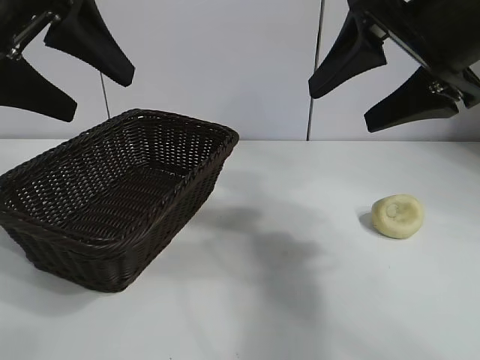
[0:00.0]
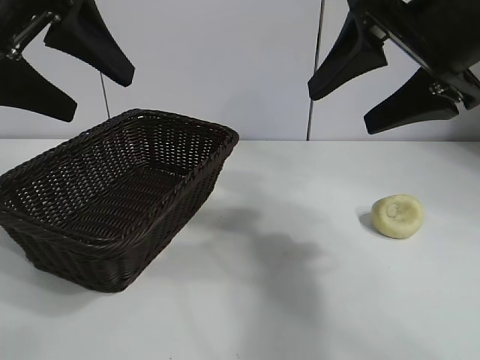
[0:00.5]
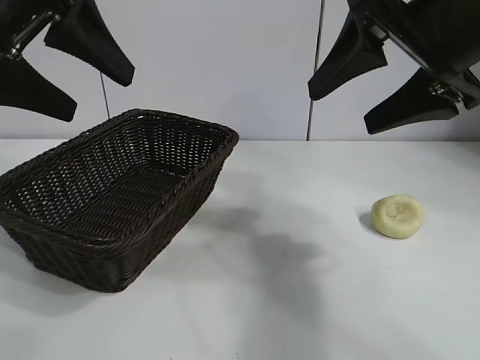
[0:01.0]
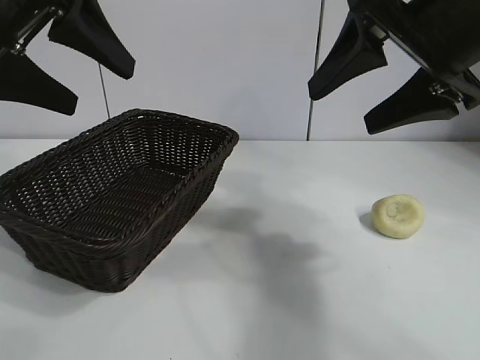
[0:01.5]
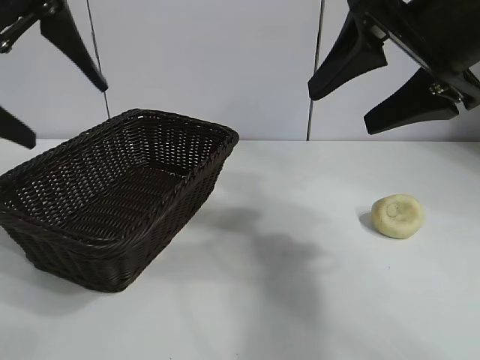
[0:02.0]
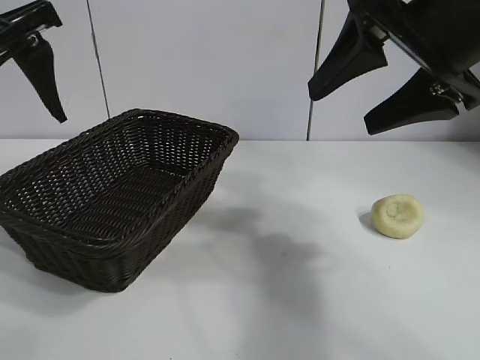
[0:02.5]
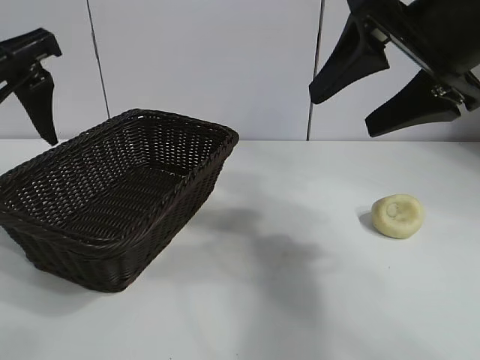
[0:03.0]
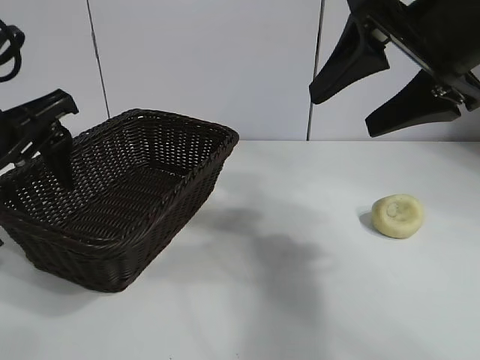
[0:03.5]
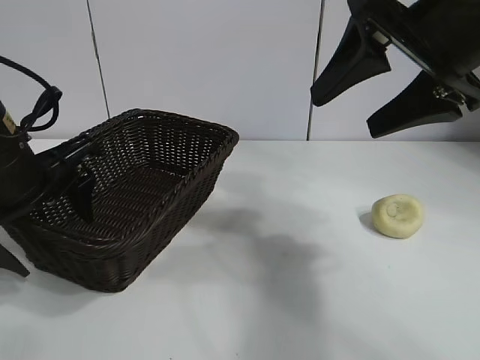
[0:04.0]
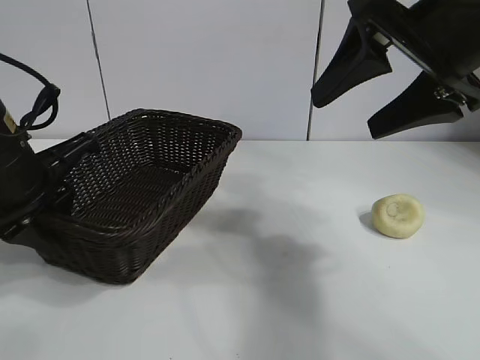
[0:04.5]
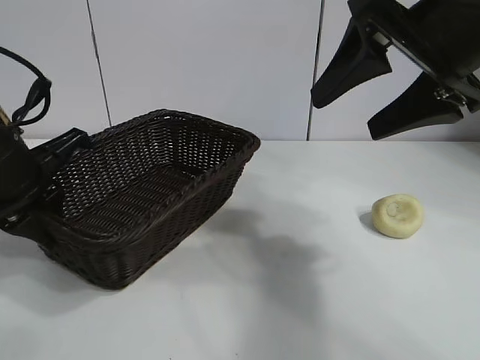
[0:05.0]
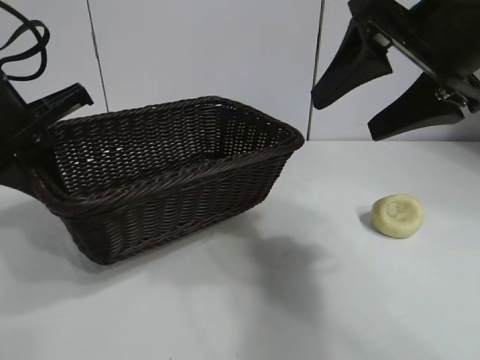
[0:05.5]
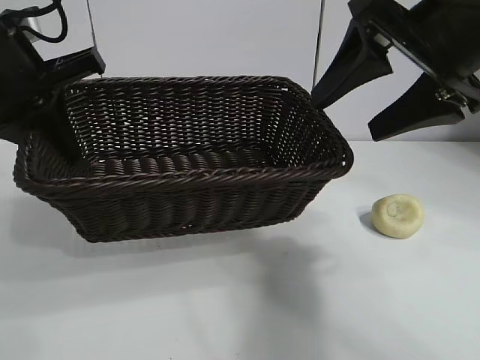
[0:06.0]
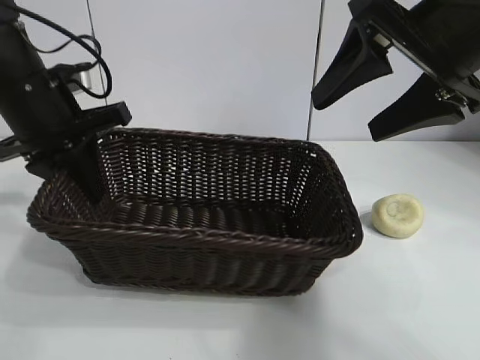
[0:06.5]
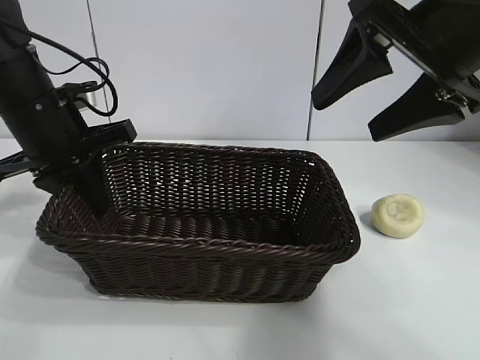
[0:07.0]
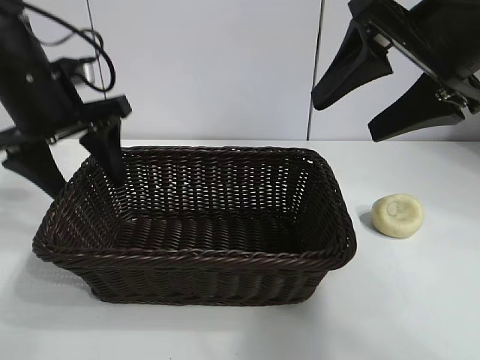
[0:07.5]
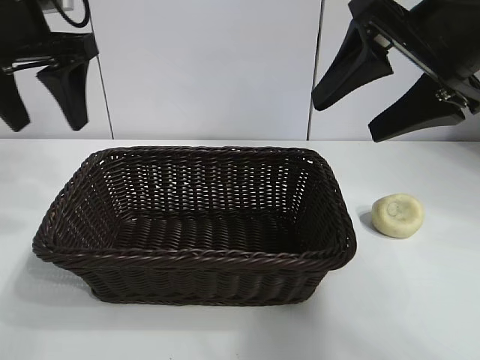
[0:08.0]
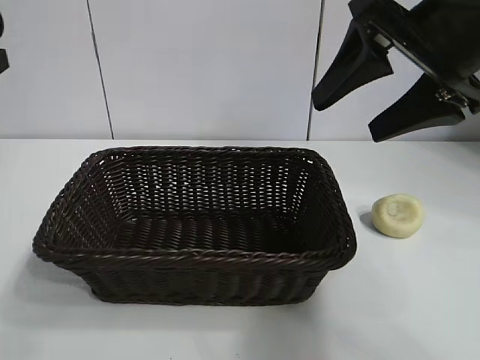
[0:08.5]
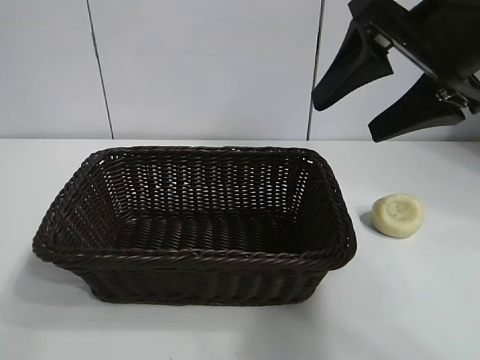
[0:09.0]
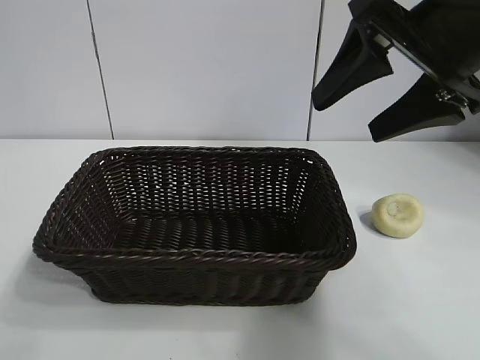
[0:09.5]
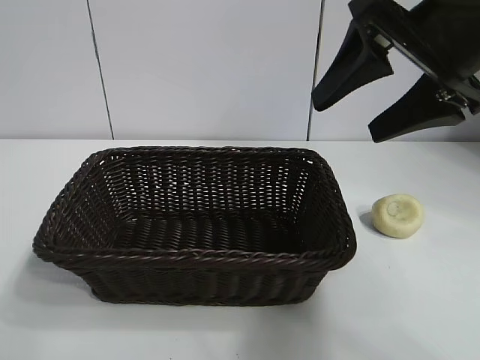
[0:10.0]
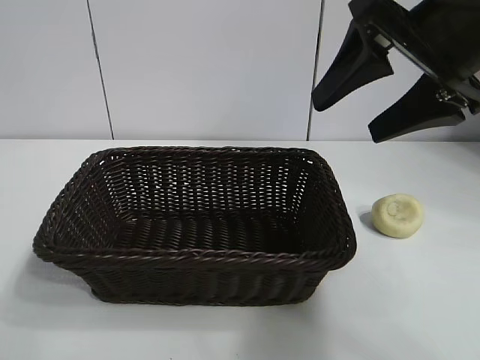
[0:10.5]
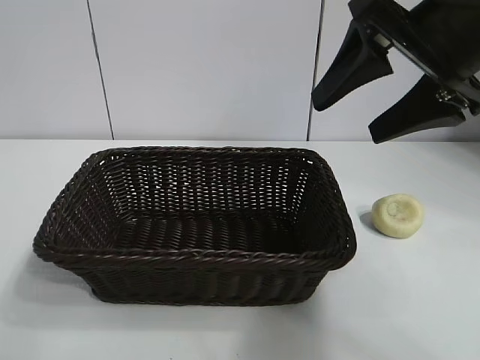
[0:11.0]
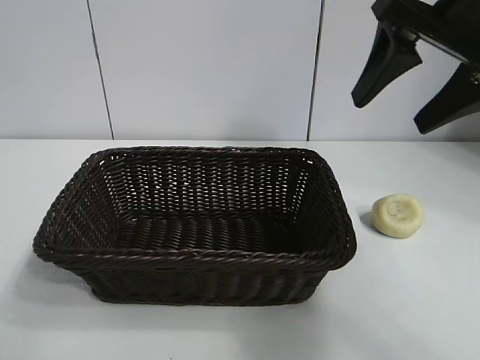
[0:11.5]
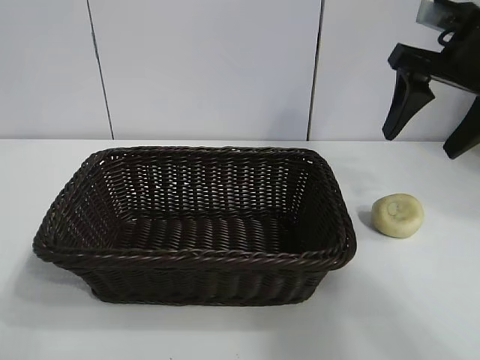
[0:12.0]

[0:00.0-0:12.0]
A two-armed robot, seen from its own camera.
Task of the whole recording: pick up the egg yolk pastry and put it into the basket.
Step, 0:01.5 to 0:04.5: Grasp the basket with left gripper.
Step, 0:05.0 to 0:07.0: Place the basket in the center of view with left gripper.

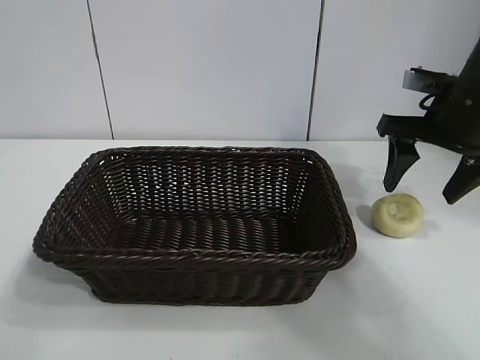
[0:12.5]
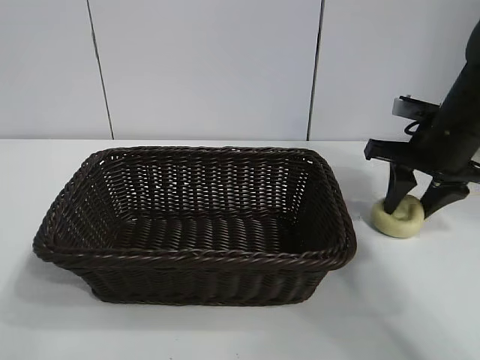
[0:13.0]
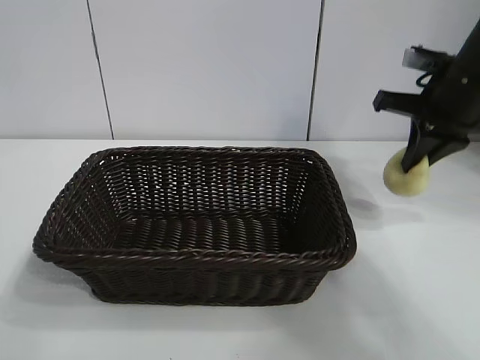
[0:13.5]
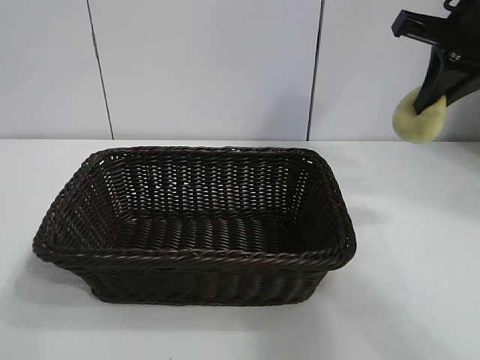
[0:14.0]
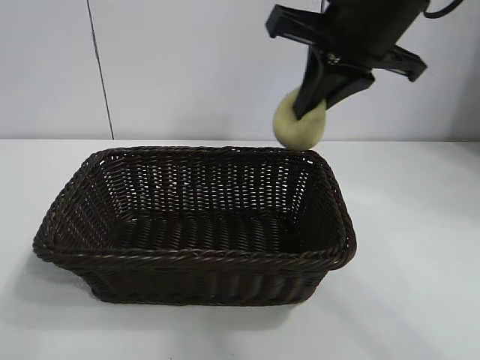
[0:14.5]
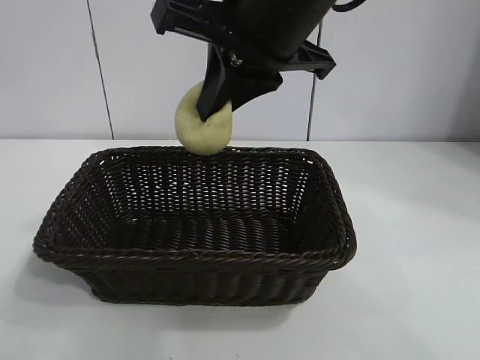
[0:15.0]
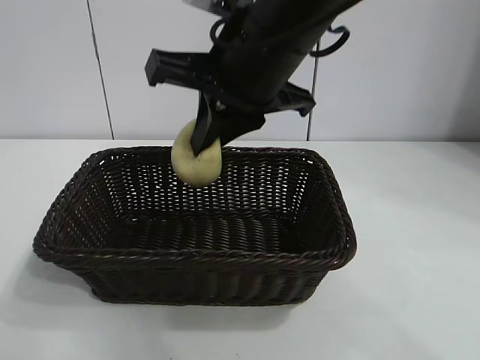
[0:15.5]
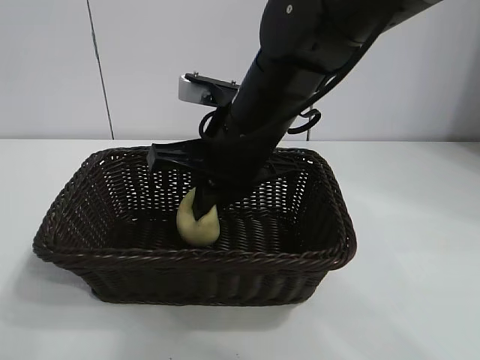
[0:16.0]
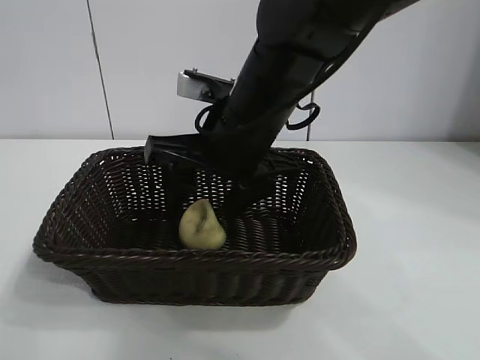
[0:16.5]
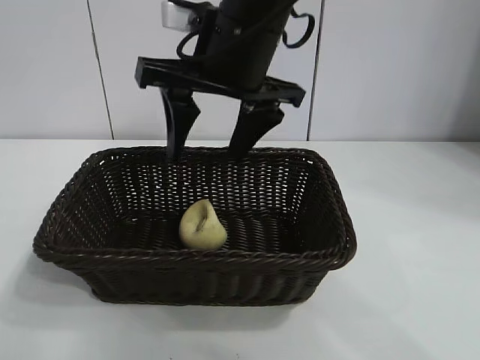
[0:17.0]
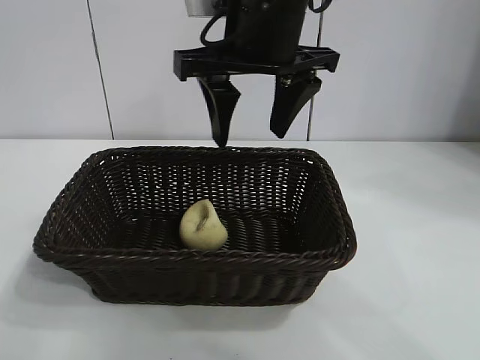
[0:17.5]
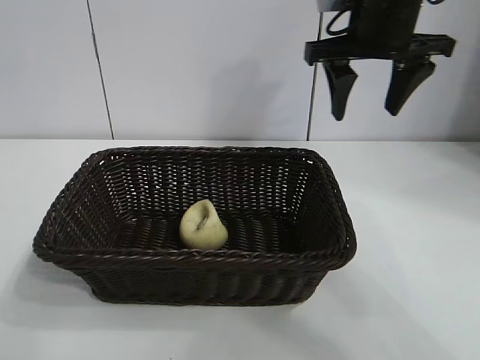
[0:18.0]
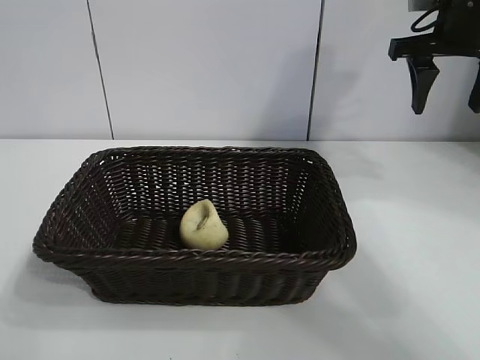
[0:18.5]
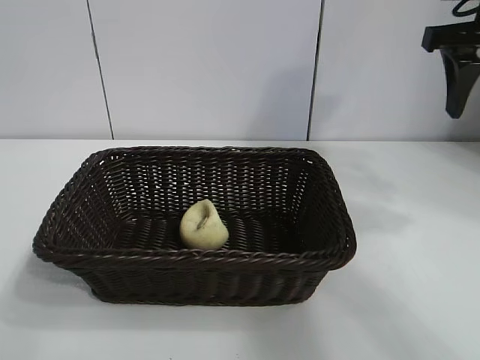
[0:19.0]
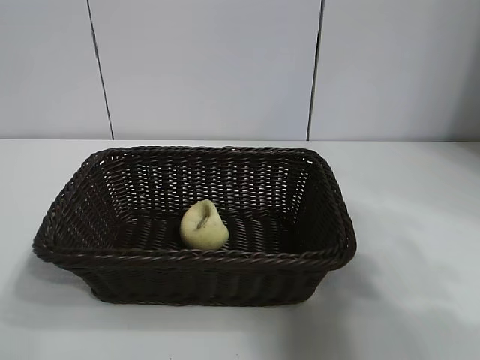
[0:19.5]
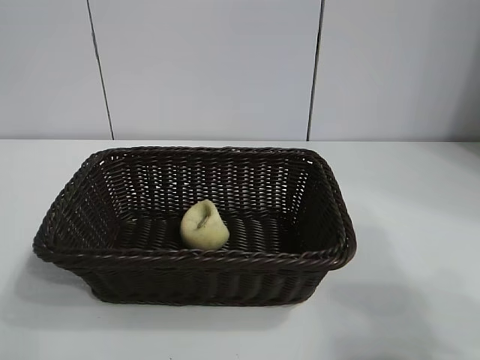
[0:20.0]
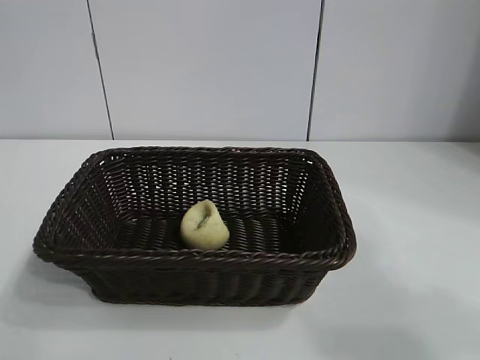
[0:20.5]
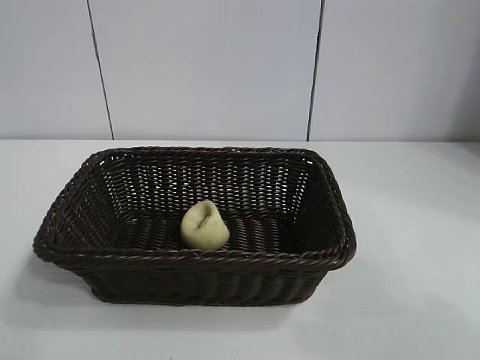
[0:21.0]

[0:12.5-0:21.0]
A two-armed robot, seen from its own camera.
Task of the whole recording: pick up the egg yolk pastry and put it into the basket.
Step, 0:13.5 to 0:16.5: Place the egg yolk pastry in the basket with right gripper.
